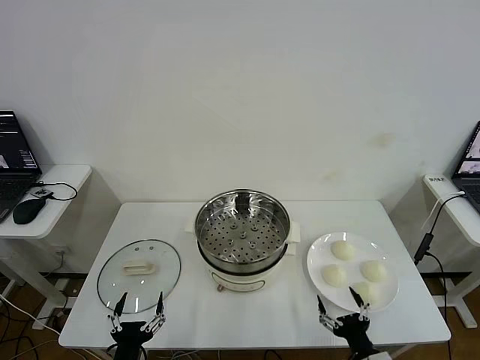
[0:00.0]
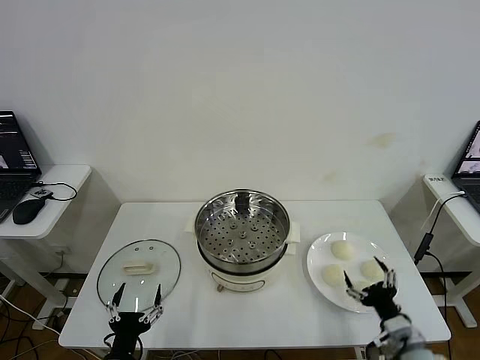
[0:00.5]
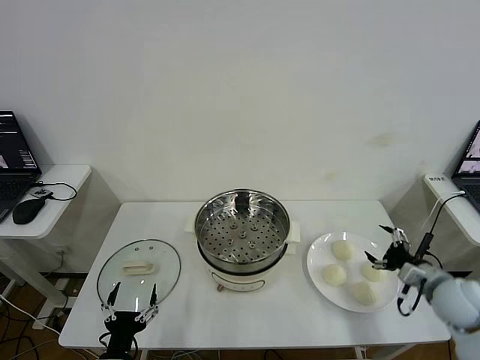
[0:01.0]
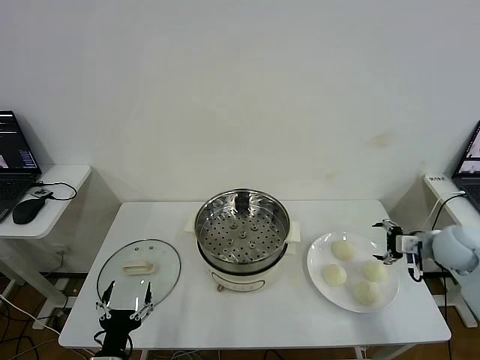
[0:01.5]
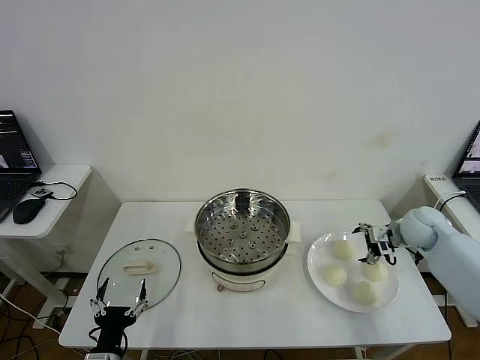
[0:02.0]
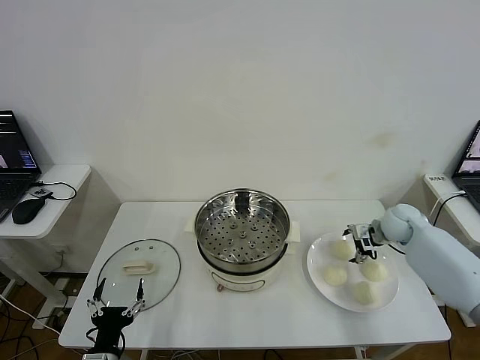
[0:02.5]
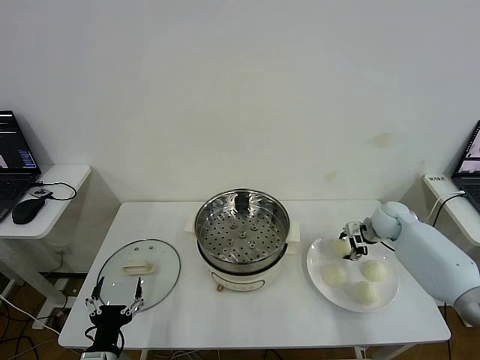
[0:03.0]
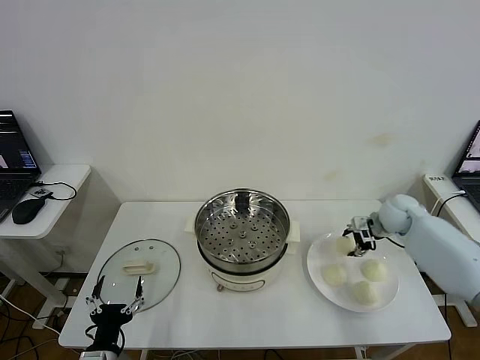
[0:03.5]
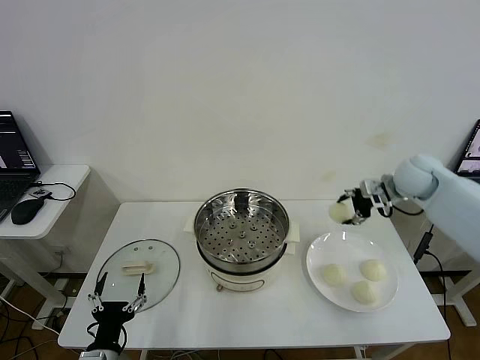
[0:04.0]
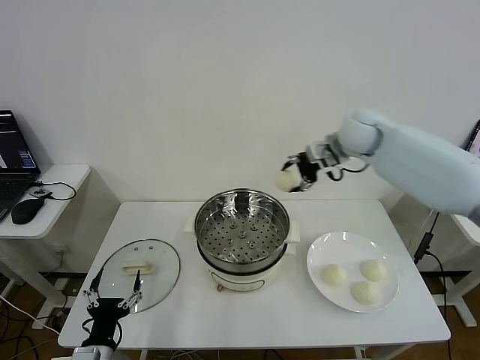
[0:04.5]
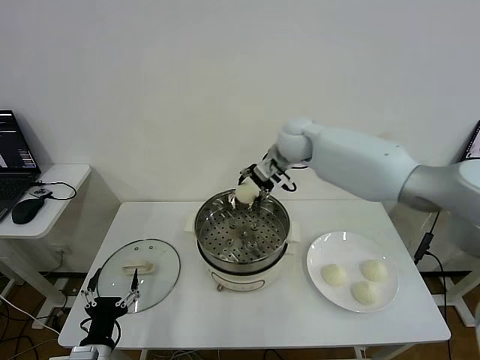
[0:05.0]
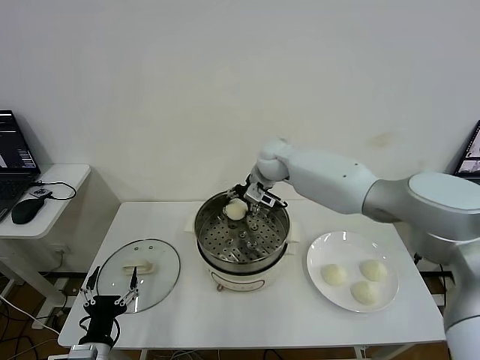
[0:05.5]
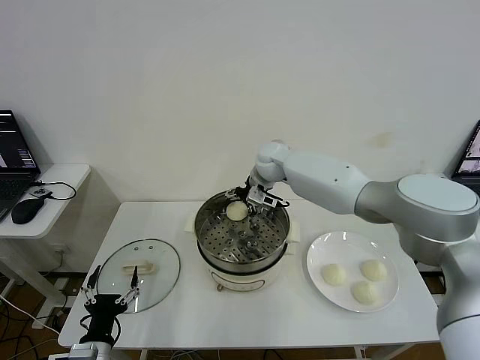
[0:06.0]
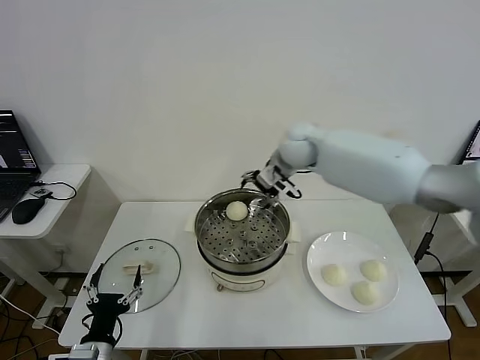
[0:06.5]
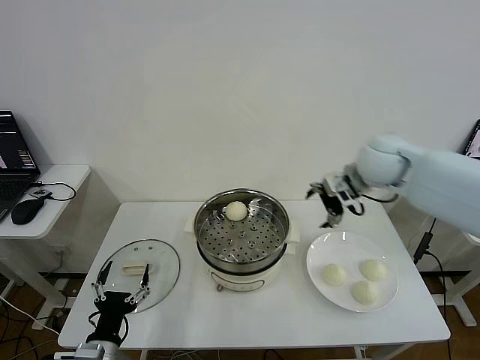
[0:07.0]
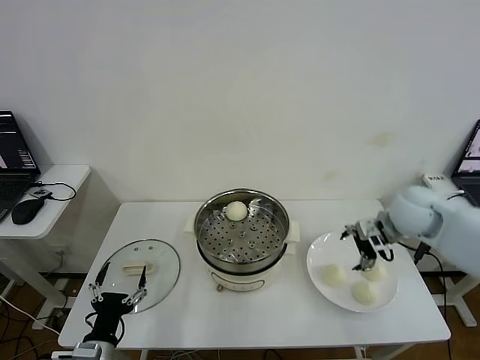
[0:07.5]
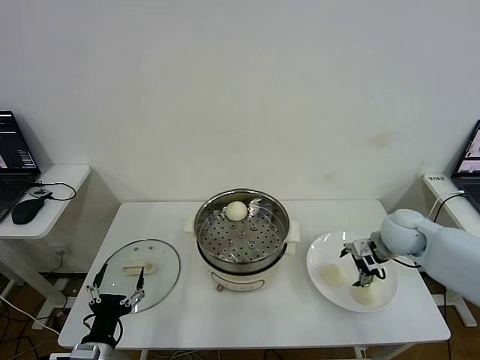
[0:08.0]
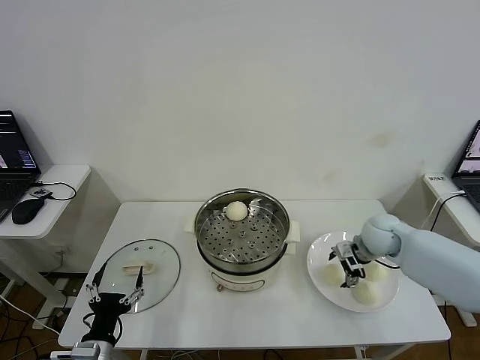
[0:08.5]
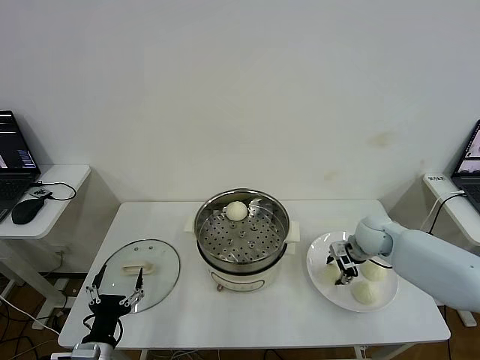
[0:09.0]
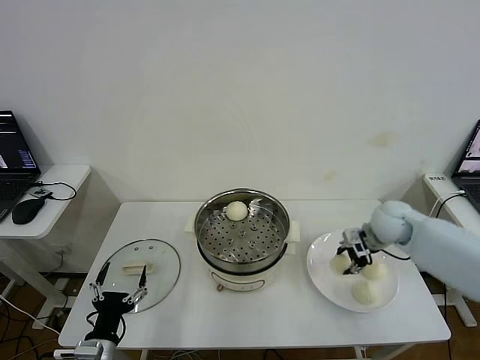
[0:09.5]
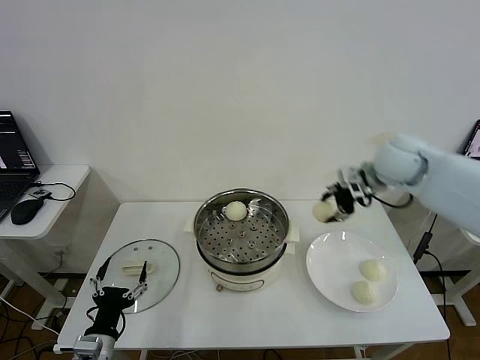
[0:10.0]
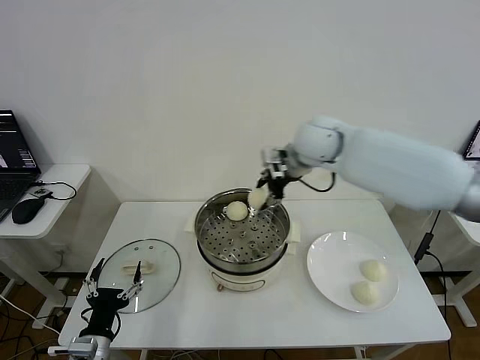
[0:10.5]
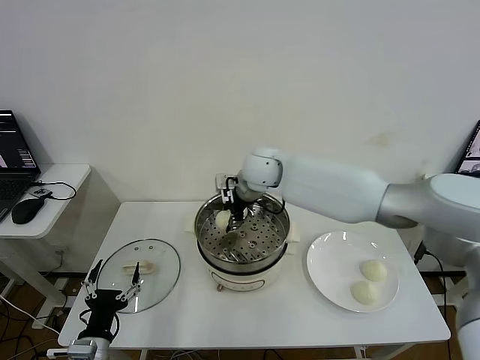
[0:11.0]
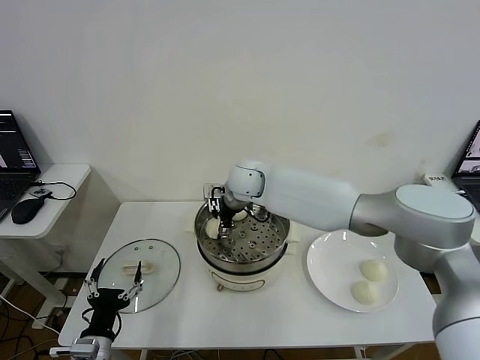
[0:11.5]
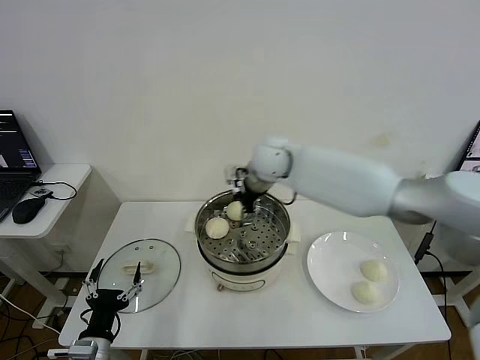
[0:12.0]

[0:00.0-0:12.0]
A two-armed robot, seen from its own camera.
Step, 0:00.0 to 0:03.0: Grasp the baozi in the plate with right gripper.
Step, 0:03.5 to 0:06.0: Place the baozi on the steamer with right gripper.
Step, 0:06.5 to 0:09.0: Grasp the baozi in the plate with right gripper.
Step, 0:09.5 to 0:11.5: Place the baozi on the steamer with right gripper.
0:02.0 to 0:04.0: The right gripper is displaced upward by about 15 cm, and closes up.
0:04.0 to 0:06.0: The right gripper heads to the left, covering approximately 30 cm, and opens its fingers.
0:06.0 to 0:08.0: The right gripper is displaced to the right and backward by approximately 30 cm.
0:08.0 to 0:10.0: The right gripper shifts about 20 cm upward and to the left, and closes up.
0:10.0 to 0:12.0: The right gripper goes about 20 cm to the left, and opens.

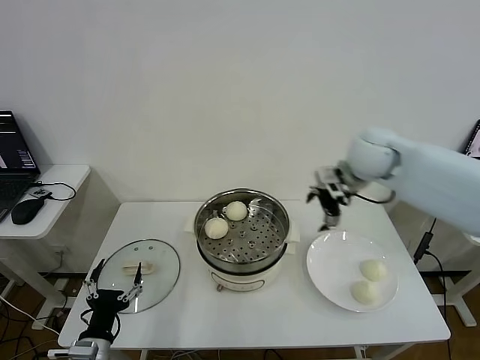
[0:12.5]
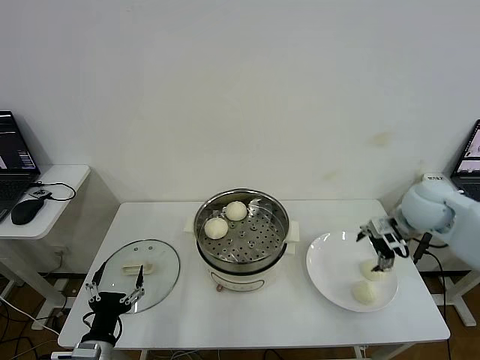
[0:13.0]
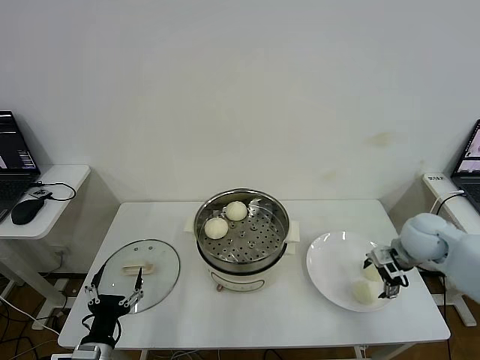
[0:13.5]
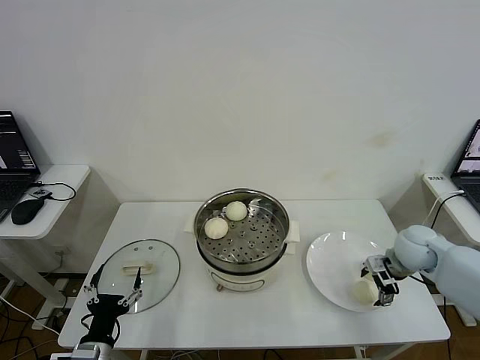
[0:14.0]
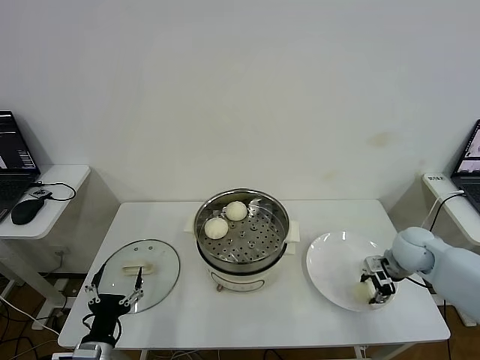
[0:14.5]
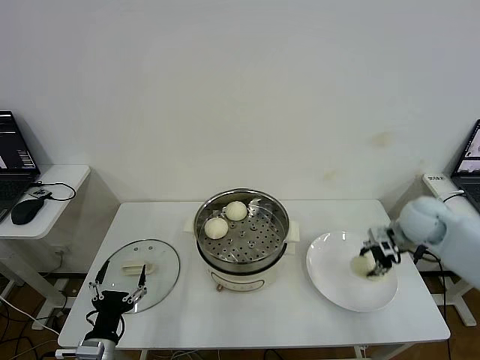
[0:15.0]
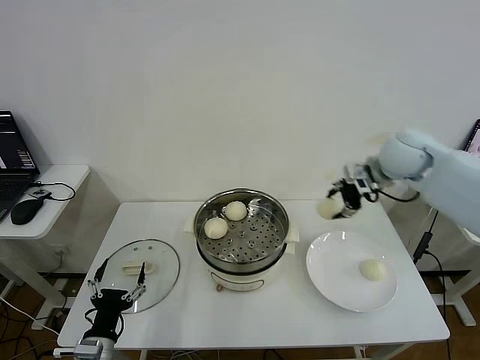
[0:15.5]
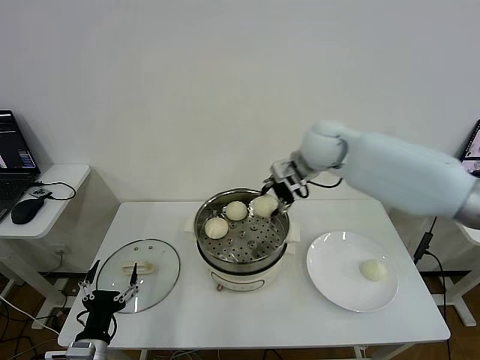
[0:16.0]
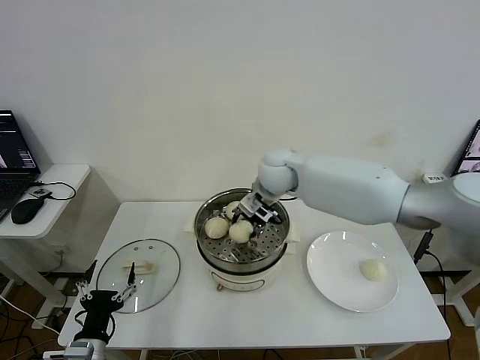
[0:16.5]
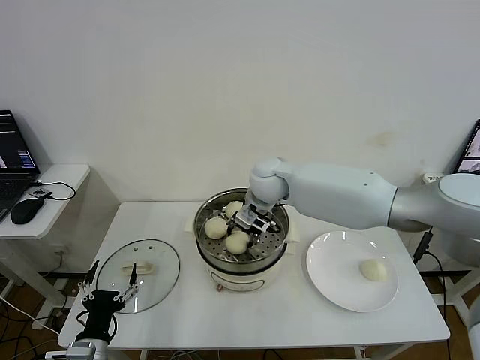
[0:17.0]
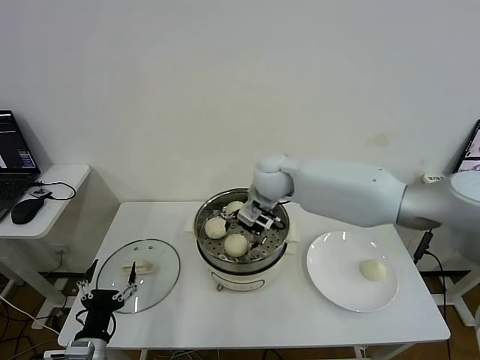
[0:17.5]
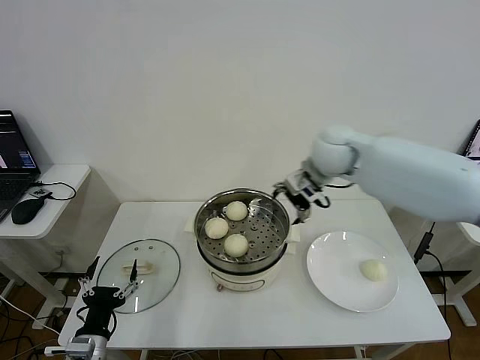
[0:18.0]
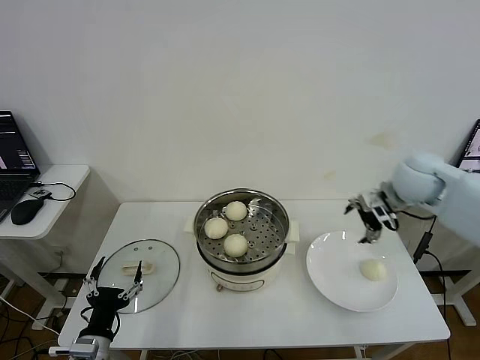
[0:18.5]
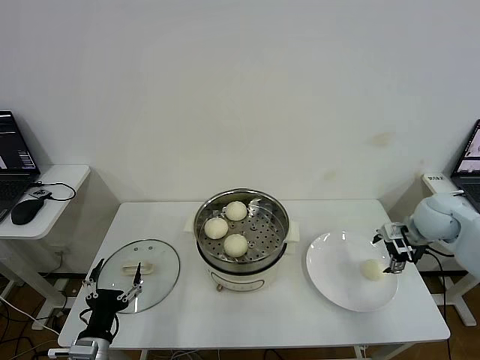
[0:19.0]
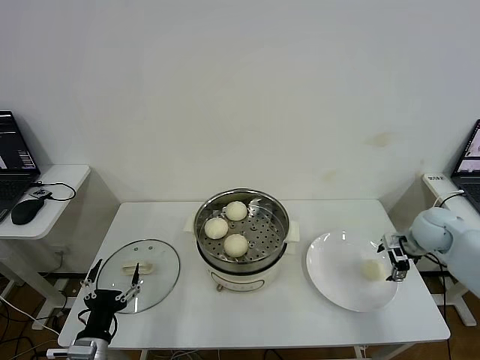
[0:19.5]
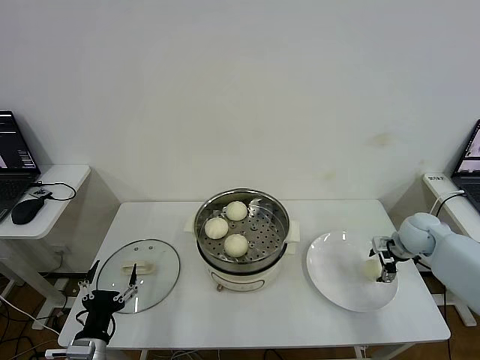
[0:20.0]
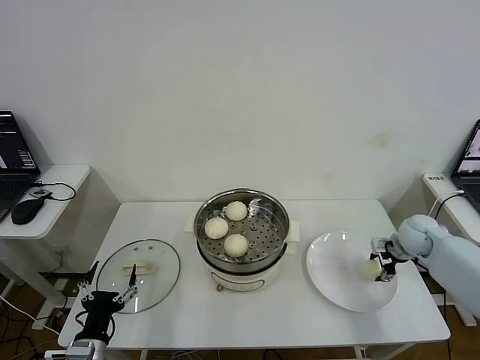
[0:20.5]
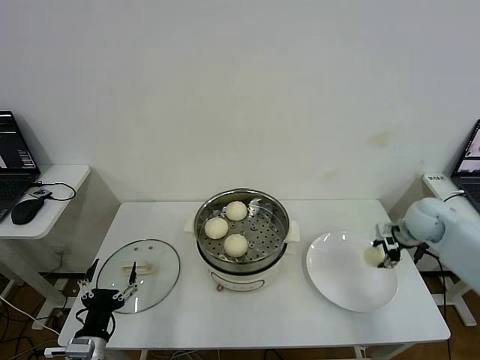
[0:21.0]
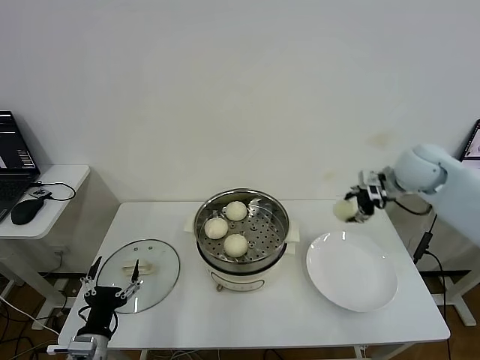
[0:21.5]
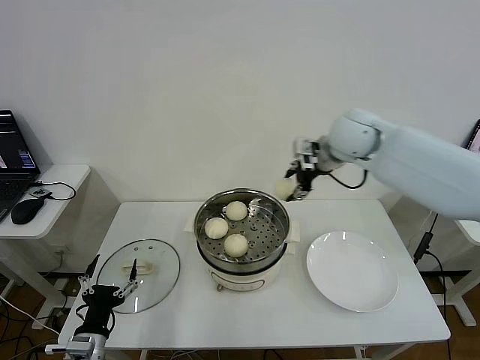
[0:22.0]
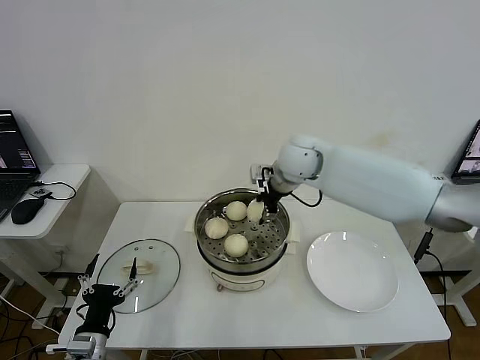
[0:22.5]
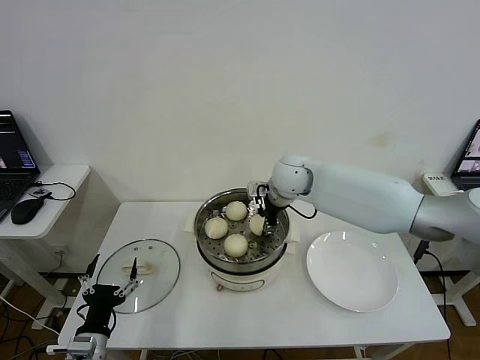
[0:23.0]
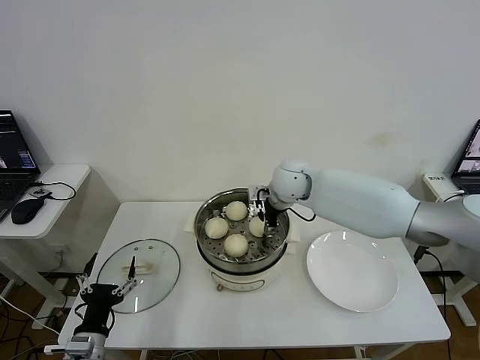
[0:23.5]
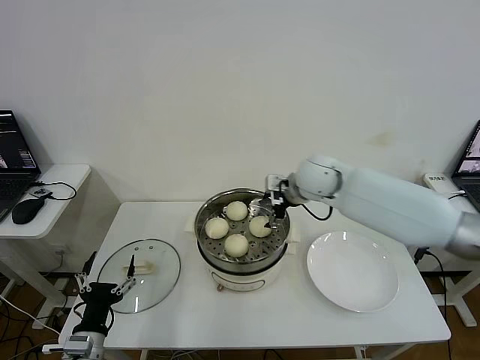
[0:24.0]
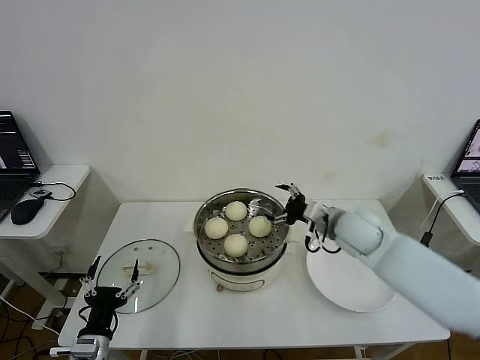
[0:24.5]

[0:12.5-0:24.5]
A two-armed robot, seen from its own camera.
Step, 0:12.5 to 0:14.5: Grasp the baozi in the plate with right gripper.
Step, 0:15.0 to 0:17.5: Place the baozi on the steamer with right gripper.
Step, 0:18.0 to 0:20.5: Grasp the baozi in the plate with right gripper.
Step, 0:21.0 to 0:23.5: Place the baozi on the steamer with right gripper.
0:12.5 to 0:14.5: The right gripper travels downward and to the right by roughly 20 cm, and closes its fingers.
0:14.5 to 0:16.5: The right gripper heads to the left and upward, covering some 35 cm.
0:16.5 to 0:18.5: The right gripper shifts about 30 cm to the right, and opens up.
0:18.5 to 0:20.5: The right gripper moves downward and to the right, roughly 20 cm, and closes its fingers.
0:20.5 to 0:22.5: The right gripper heads to the left and upward, covering some 35 cm.
0:22.5 to 0:24.5: The right gripper shifts some 20 cm to the right, downward and backward, and opens up.

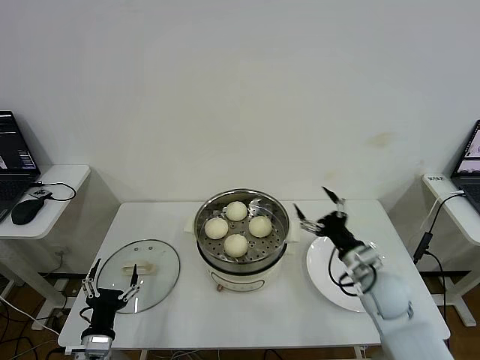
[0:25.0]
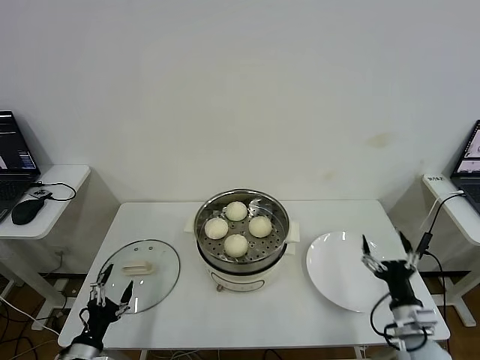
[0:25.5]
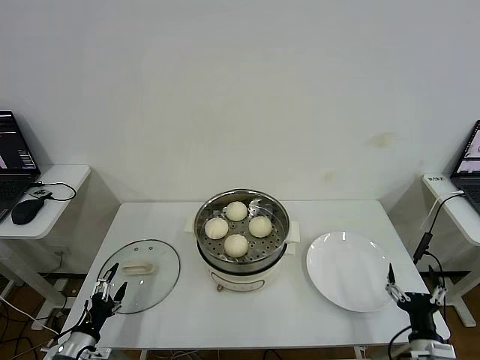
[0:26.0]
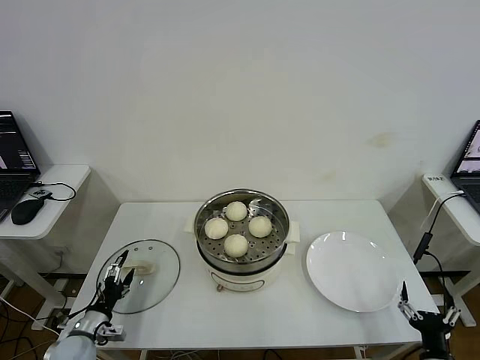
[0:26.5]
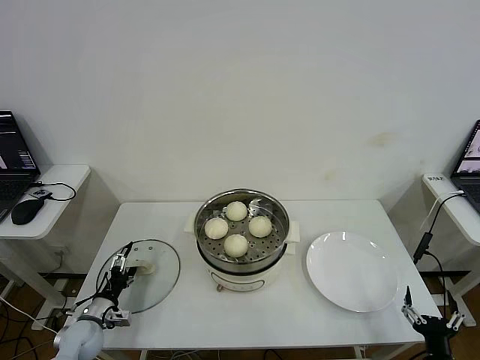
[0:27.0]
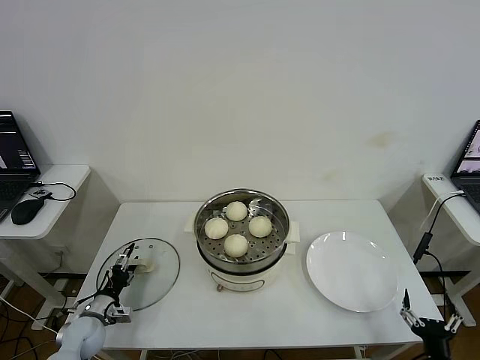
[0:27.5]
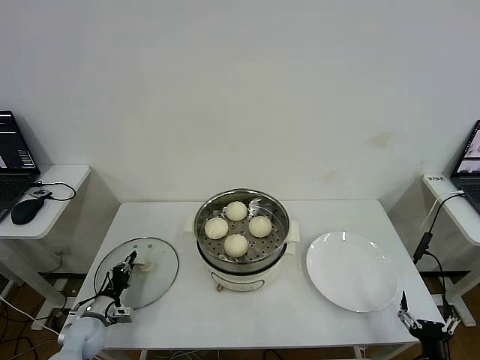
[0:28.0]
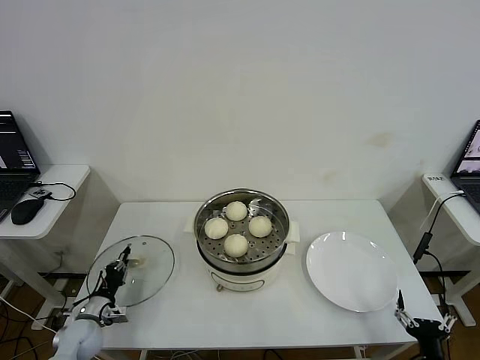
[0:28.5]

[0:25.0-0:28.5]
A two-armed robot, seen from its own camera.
Step, 0:25.0 to 0:28.0: Grasp the pot lid with left gripper.
0:25.0 to 0:27.0: The right gripper heads backward, downward and to the right, covering roughly 25 cm. The left gripper travels forward, to the left and downward by some 15 cm.
0:27.0 to 0:28.5: The left gripper closes its fingers.
